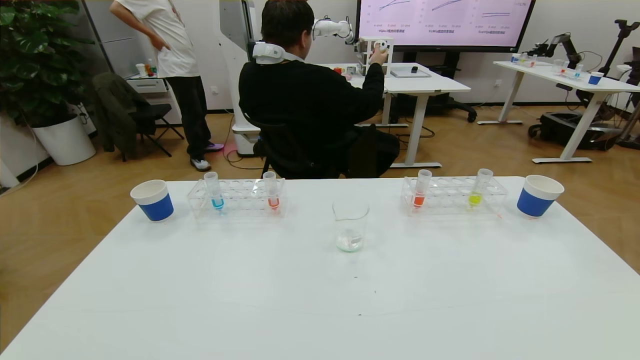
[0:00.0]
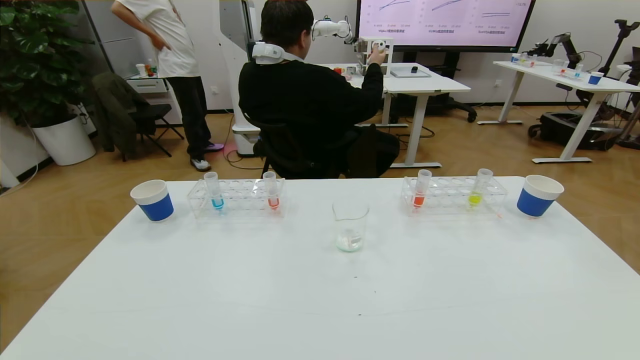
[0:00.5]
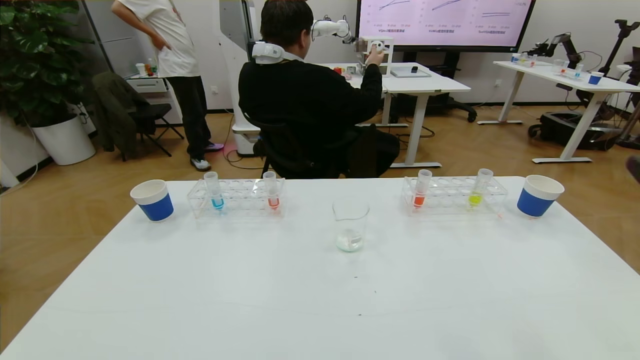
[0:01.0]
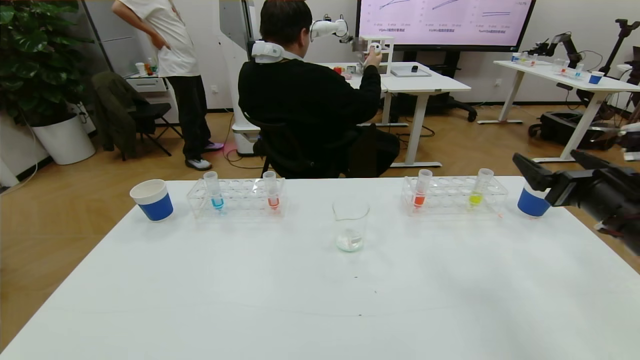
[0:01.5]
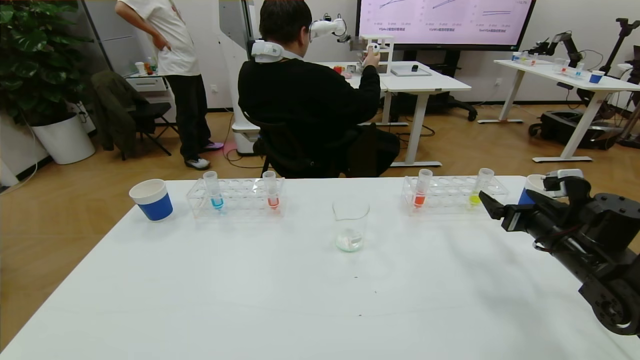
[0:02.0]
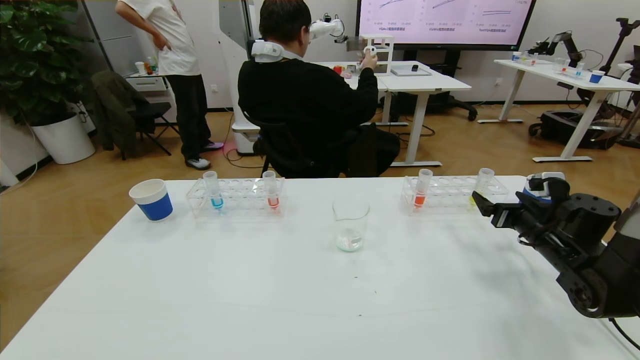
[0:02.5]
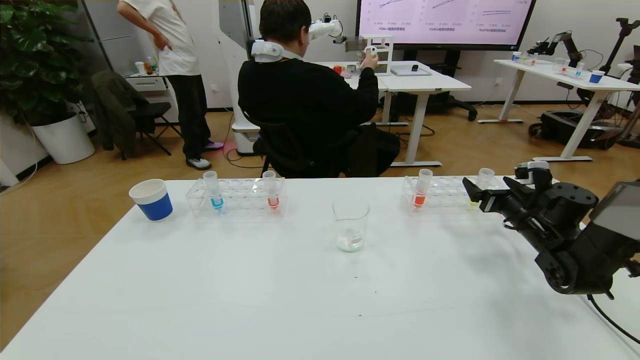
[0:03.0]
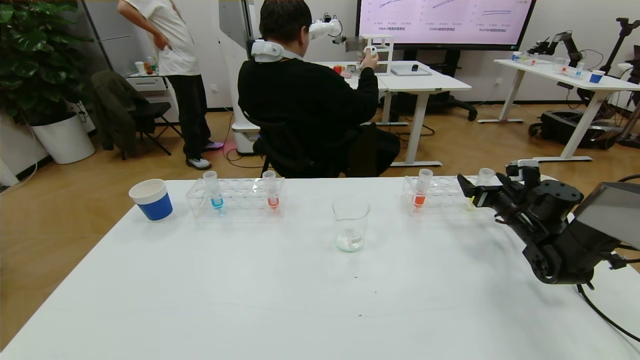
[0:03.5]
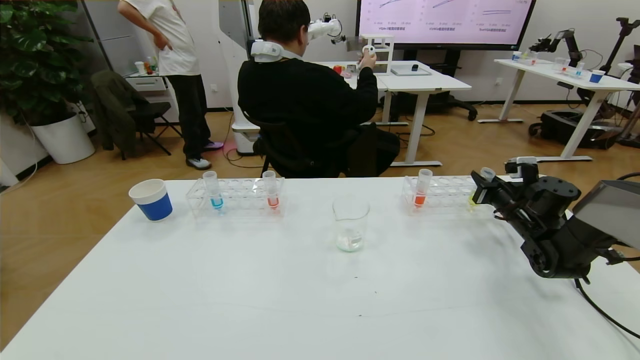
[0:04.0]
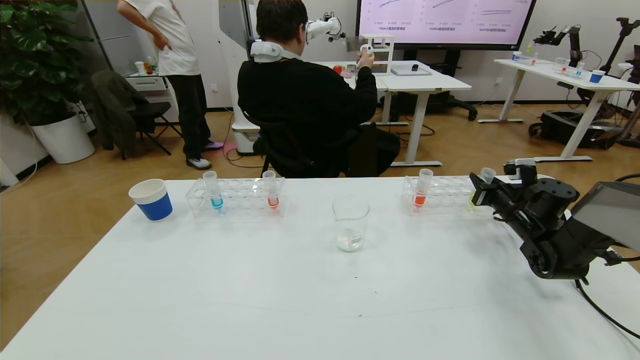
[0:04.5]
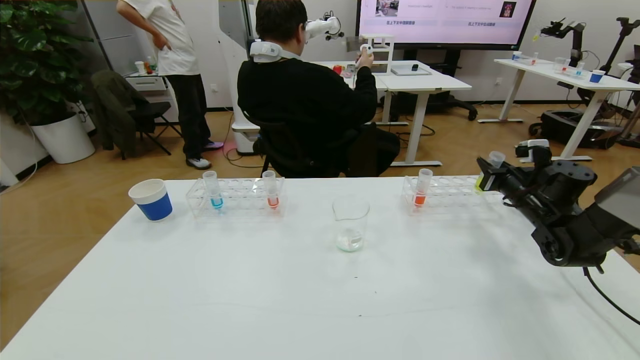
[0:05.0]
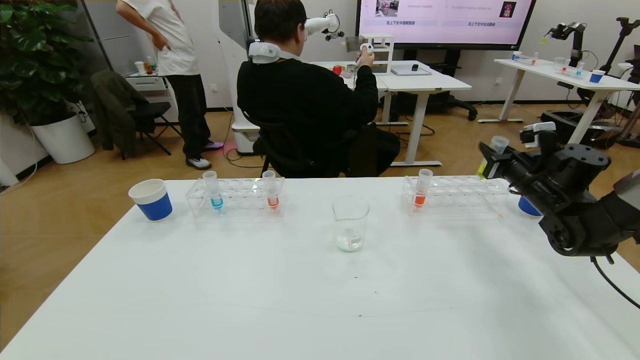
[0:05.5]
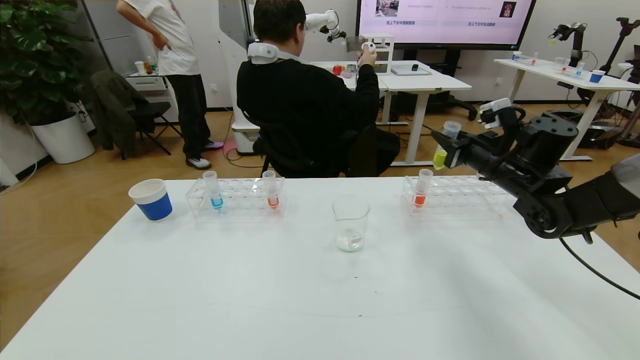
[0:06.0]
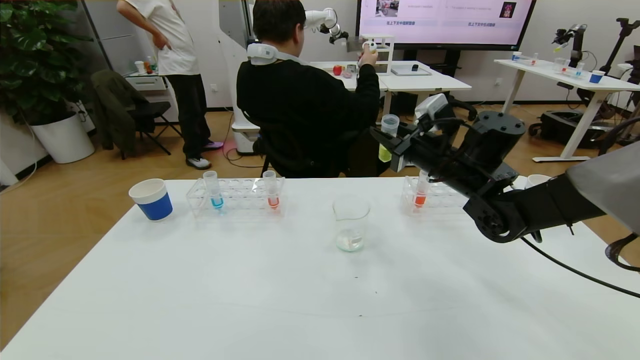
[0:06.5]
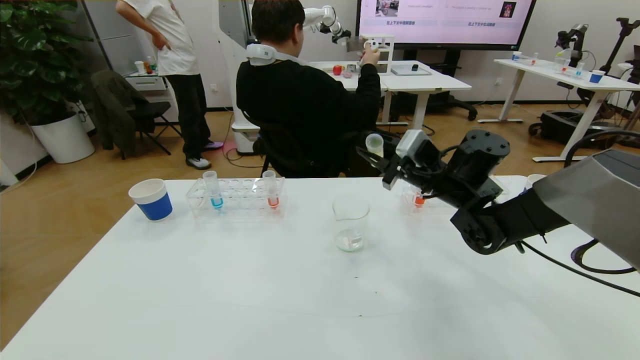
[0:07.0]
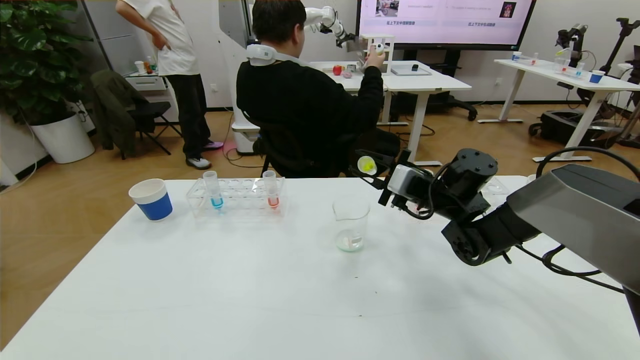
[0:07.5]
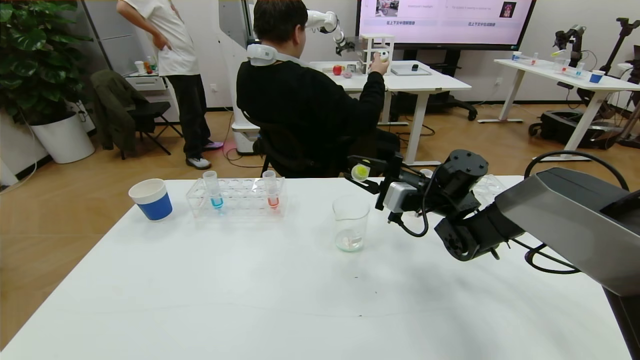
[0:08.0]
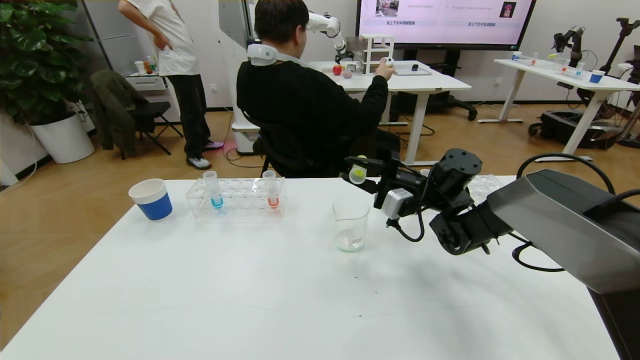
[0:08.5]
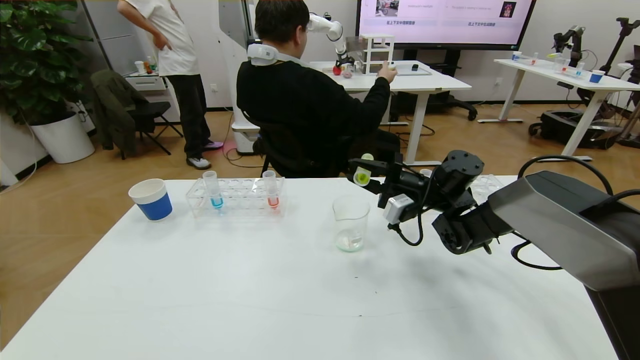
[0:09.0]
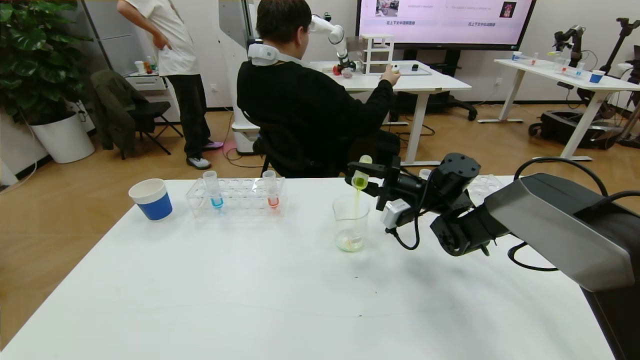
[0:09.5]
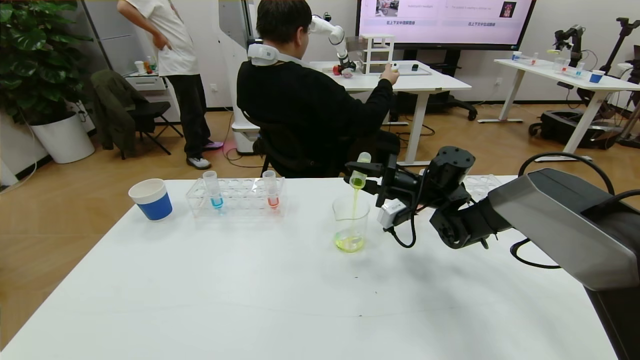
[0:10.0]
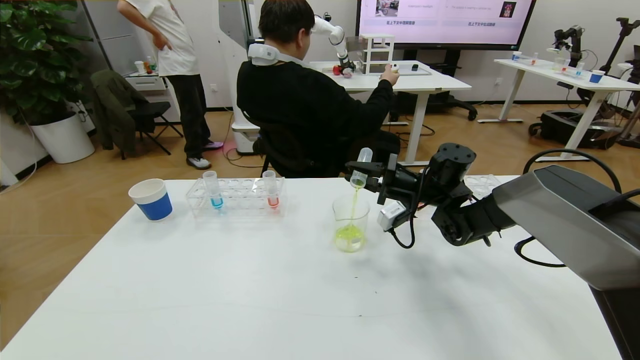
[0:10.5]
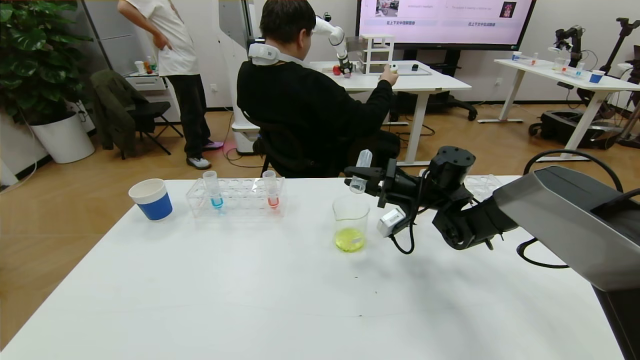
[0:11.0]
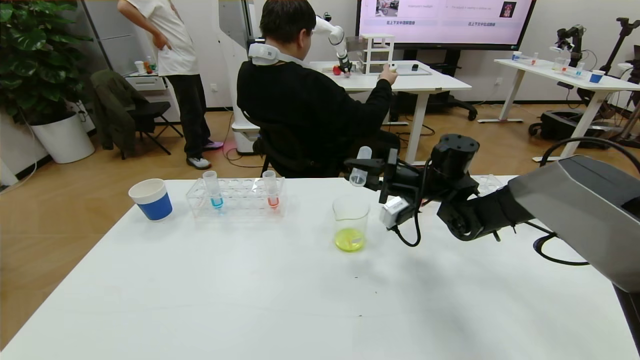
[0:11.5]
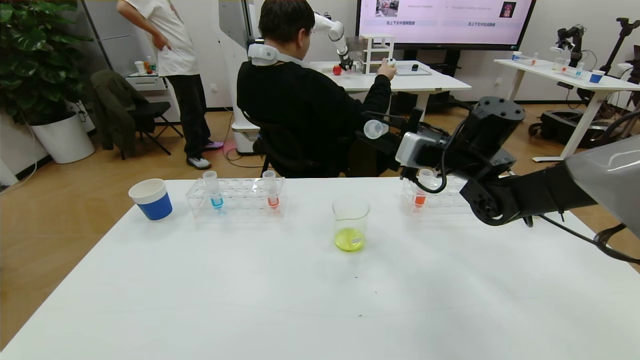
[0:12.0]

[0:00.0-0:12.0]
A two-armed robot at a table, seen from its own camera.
Task of the whole recording: pick up the test tube with yellow pigment and the test tube with blue pigment by grippers and pour them into the beaker.
0:00.0 to 0:02.0: The right gripper moves forward, some 35 cm.
0:02.0 to 0:04.0: The right gripper shifts roughly 10 cm forward, and closes up.
0:04.0 to 0:06.0: The right gripper goes about 15 cm upward and to the left.
0:06.0 to 0:08.0: The right gripper travels to the left and downward by roughly 15 cm.
0:10.0 to 0:12.0: The right gripper heads upward, covering approximately 10 cm.

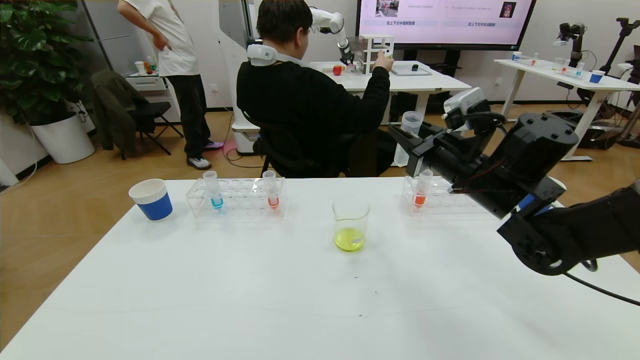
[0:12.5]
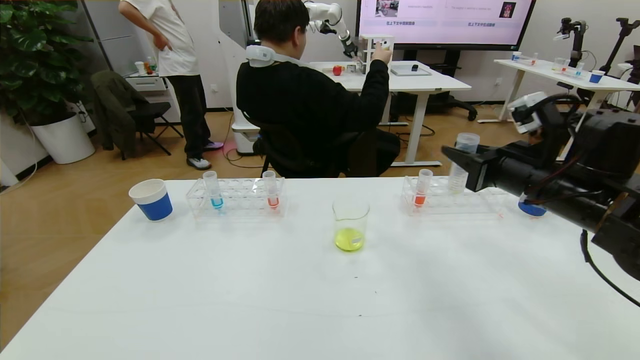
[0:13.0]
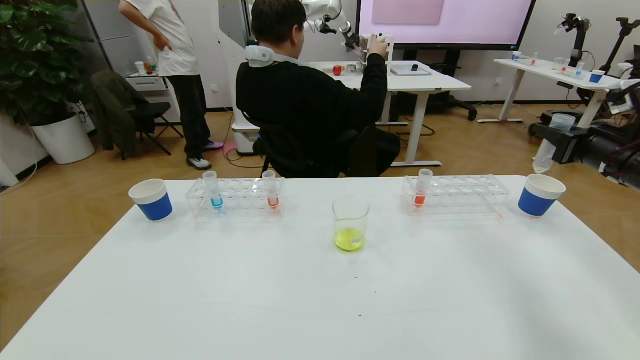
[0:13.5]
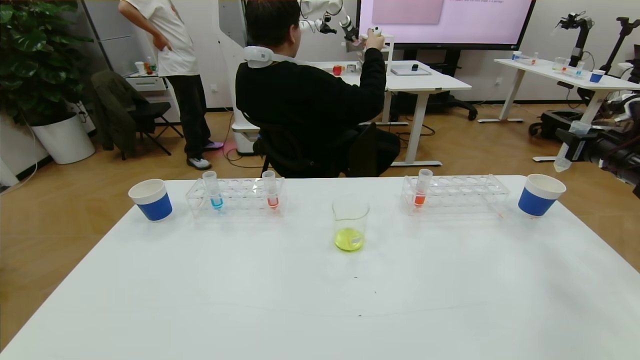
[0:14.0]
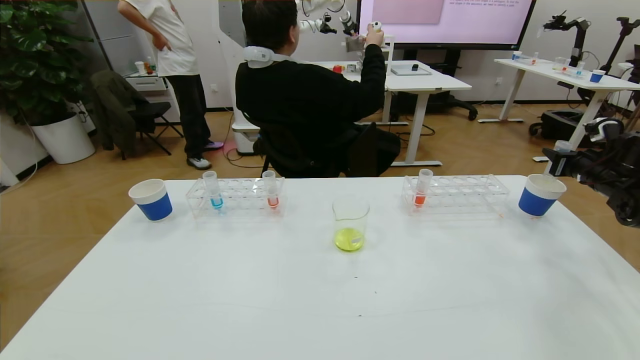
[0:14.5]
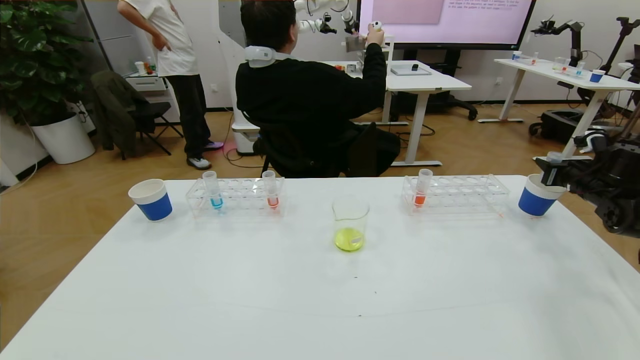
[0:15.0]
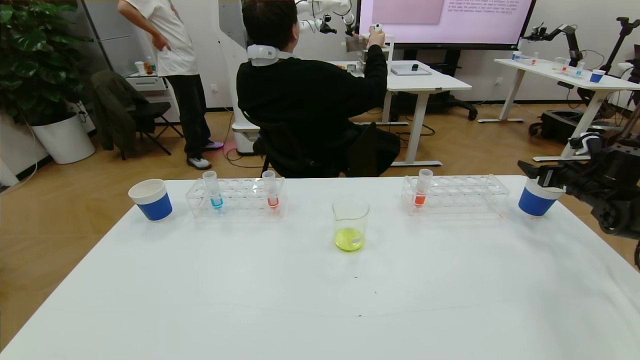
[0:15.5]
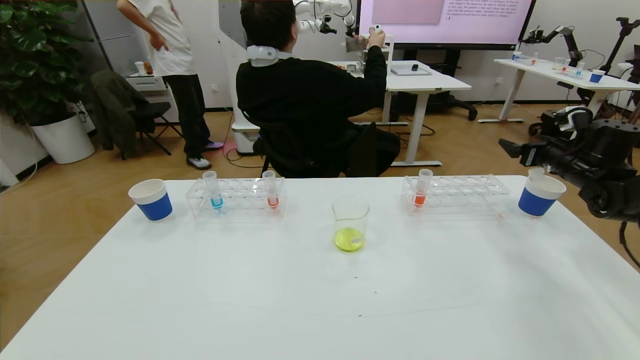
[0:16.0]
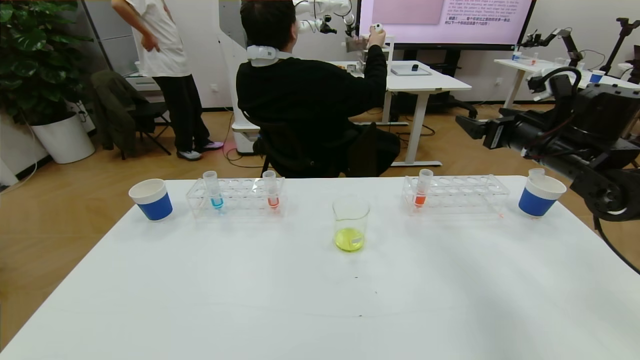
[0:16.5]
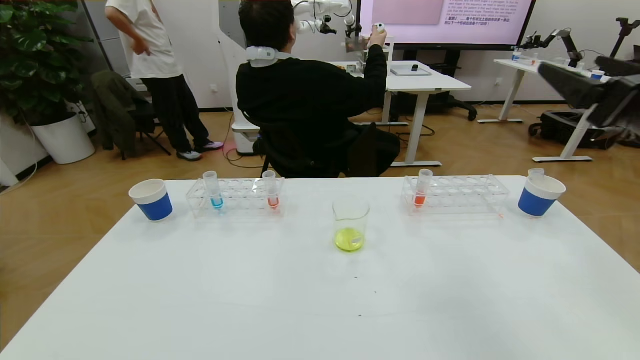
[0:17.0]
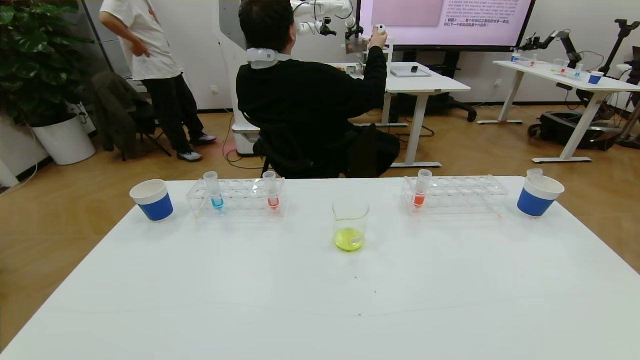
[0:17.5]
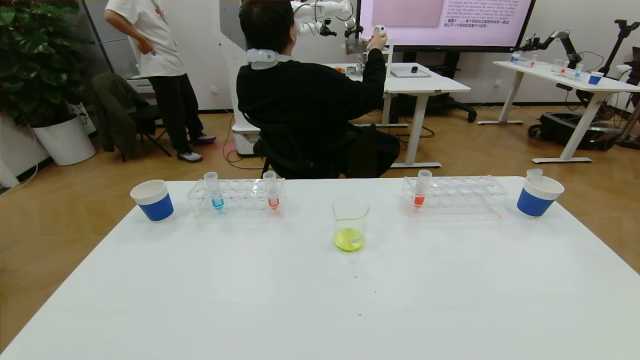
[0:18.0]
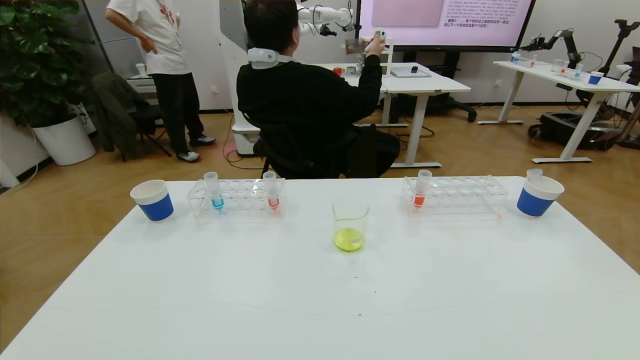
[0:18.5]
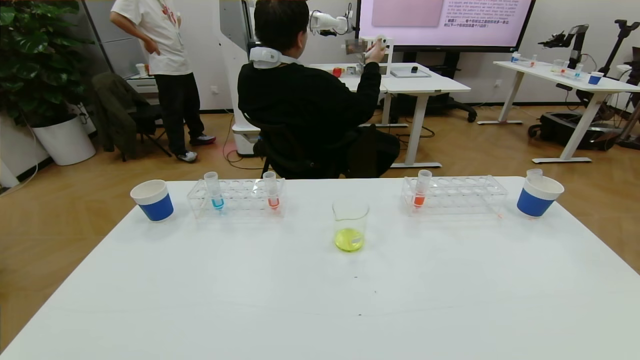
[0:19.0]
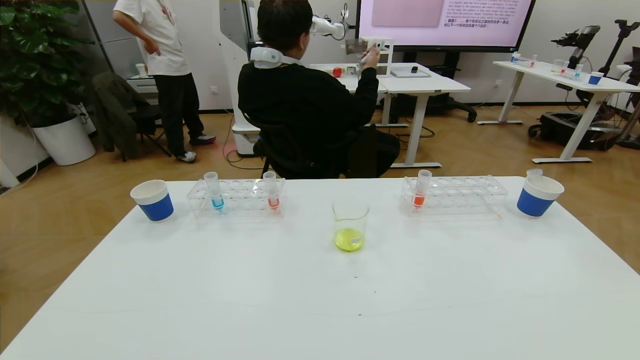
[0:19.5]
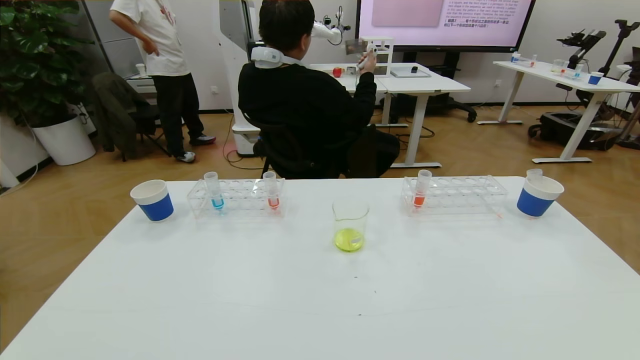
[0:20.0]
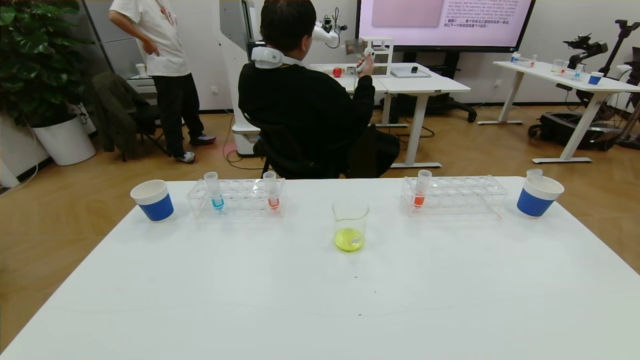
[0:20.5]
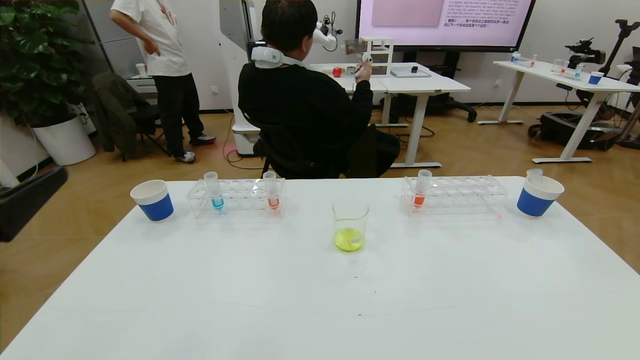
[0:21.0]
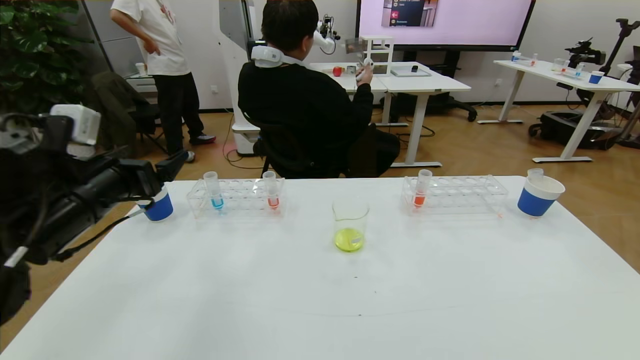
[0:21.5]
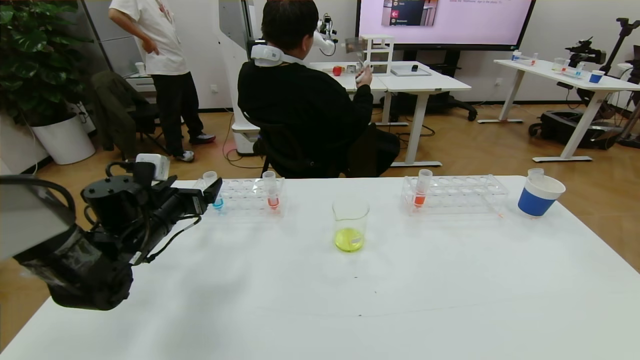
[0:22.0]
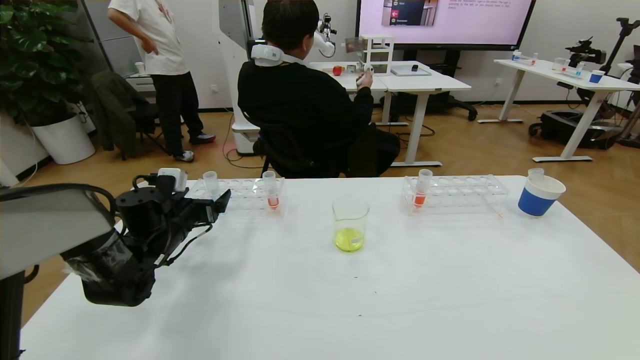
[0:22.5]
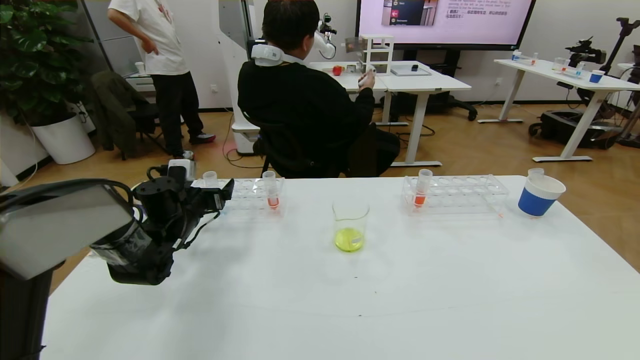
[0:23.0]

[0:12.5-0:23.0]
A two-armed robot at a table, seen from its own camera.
Task of the whole recording: pick up the test tube with yellow pigment and the test tube with blue pigment by grippers and pour them into the beaker.
Step, 0:12.5 to 0:19.5: Pour the yellow reagent into the graduated cylinder and place the test tube into the paper cup.
0:12.5 to 0:14.5: The right gripper shifts about 35 cm to the right.
0:14.5 to 0:16.5: The right gripper goes roughly 20 cm to the left and upward, and opens its fingers.
0:16.5 to 0:19.0: The right gripper moves backward, some 40 cm.
0:19.0 to 0:21.0: The left gripper travels upward and forward by roughly 20 cm.
0:21.0 to 0:23.0: The left gripper travels forward and downward by some 35 cm.
